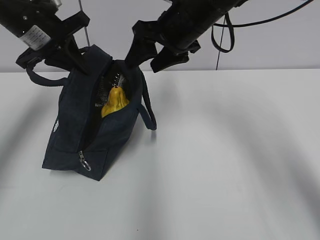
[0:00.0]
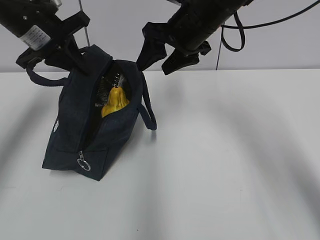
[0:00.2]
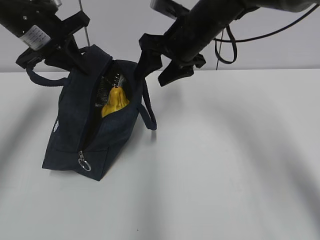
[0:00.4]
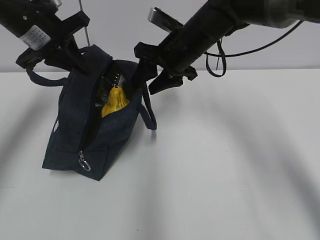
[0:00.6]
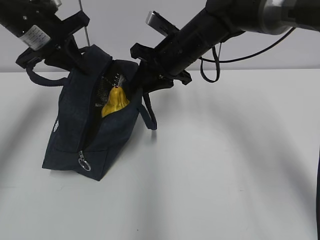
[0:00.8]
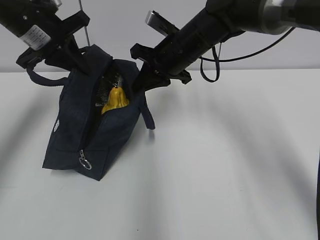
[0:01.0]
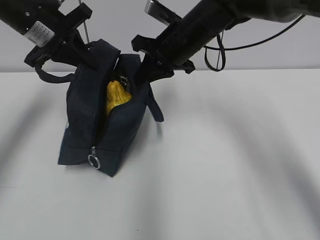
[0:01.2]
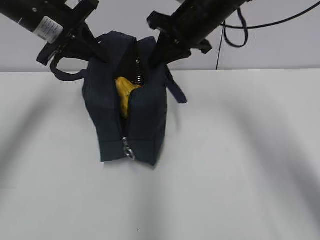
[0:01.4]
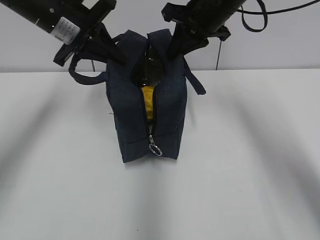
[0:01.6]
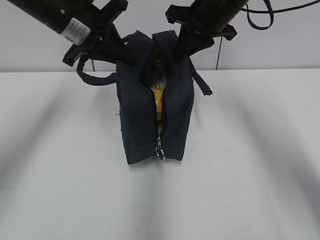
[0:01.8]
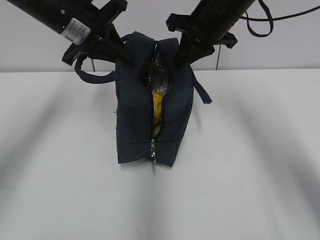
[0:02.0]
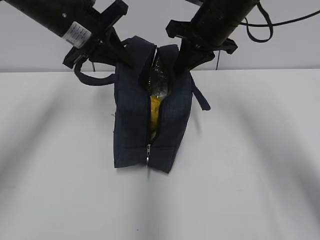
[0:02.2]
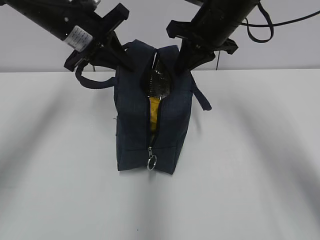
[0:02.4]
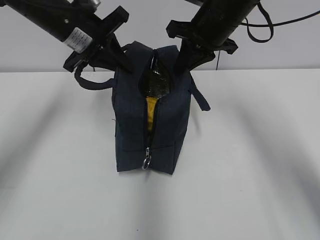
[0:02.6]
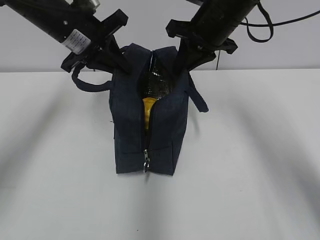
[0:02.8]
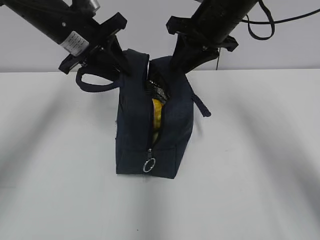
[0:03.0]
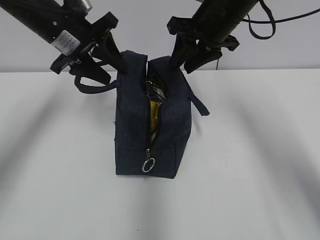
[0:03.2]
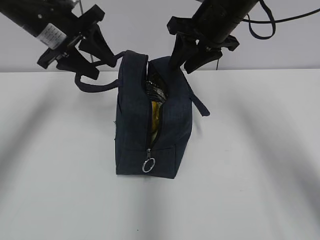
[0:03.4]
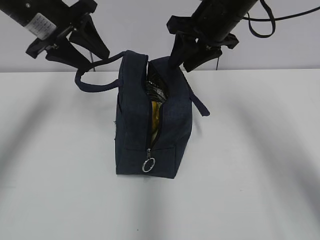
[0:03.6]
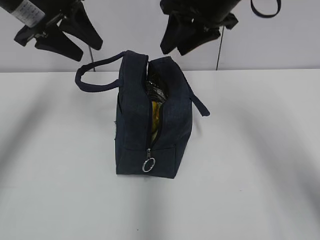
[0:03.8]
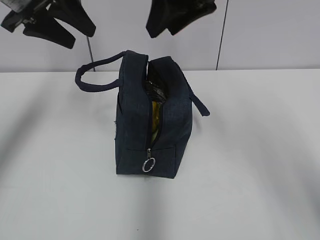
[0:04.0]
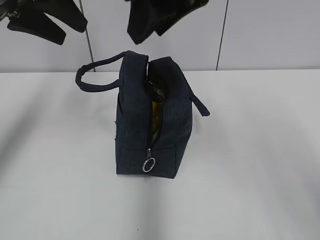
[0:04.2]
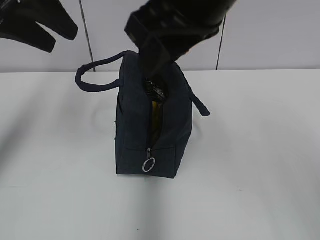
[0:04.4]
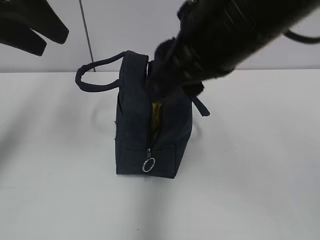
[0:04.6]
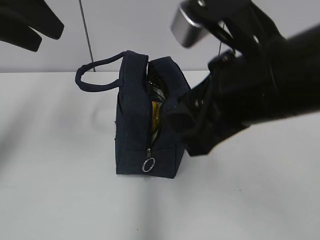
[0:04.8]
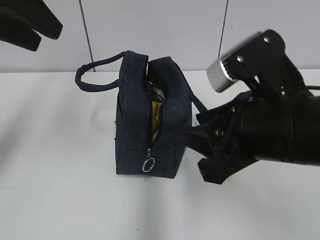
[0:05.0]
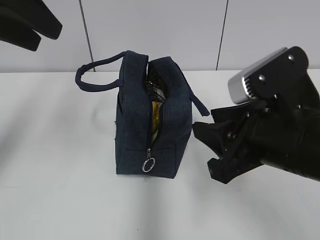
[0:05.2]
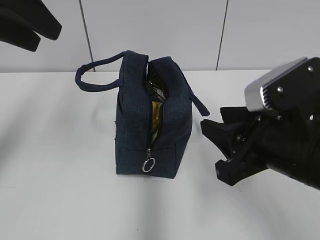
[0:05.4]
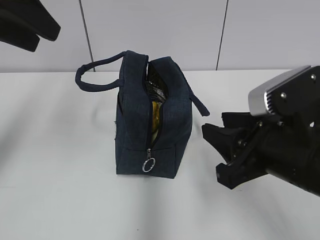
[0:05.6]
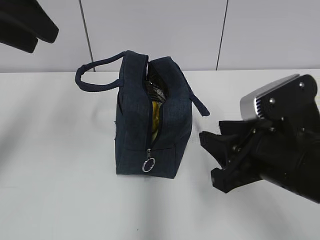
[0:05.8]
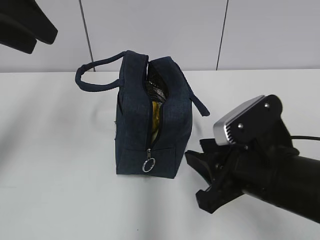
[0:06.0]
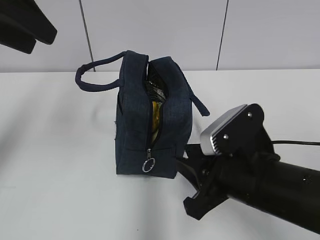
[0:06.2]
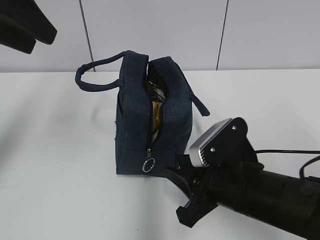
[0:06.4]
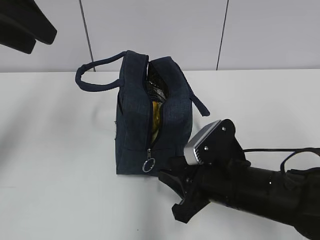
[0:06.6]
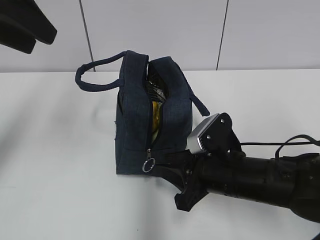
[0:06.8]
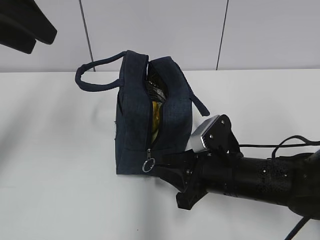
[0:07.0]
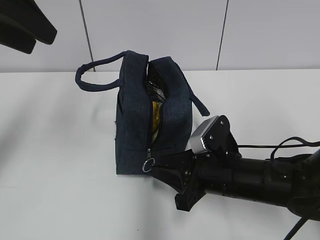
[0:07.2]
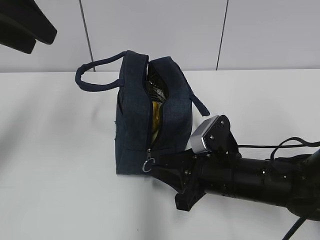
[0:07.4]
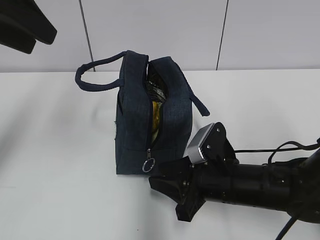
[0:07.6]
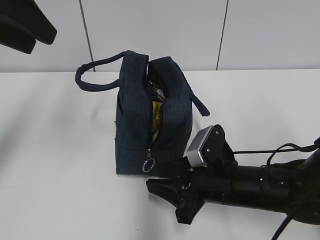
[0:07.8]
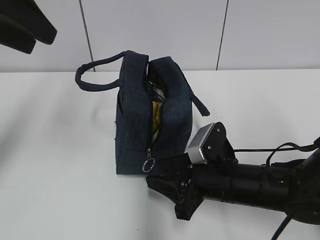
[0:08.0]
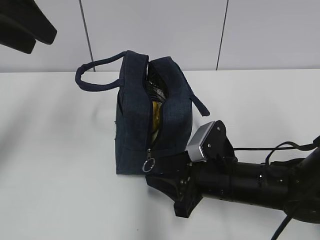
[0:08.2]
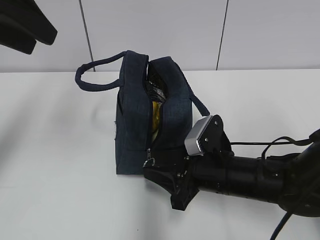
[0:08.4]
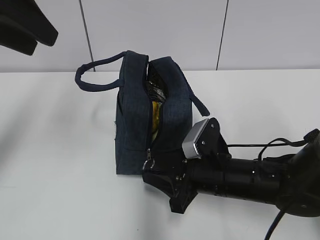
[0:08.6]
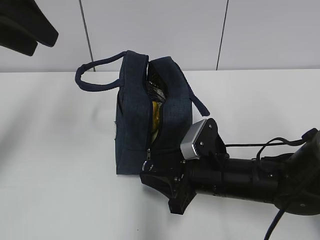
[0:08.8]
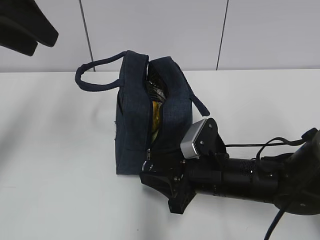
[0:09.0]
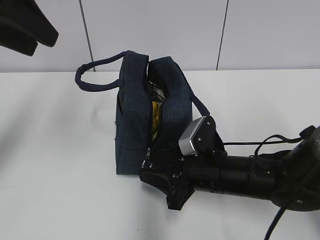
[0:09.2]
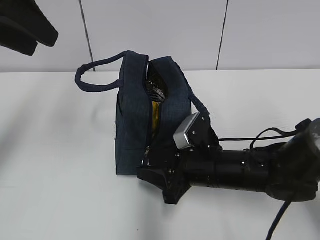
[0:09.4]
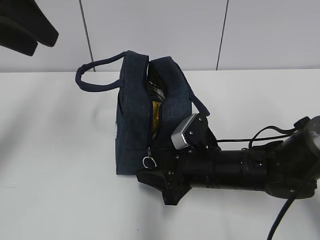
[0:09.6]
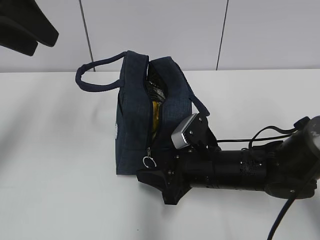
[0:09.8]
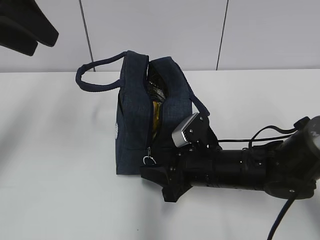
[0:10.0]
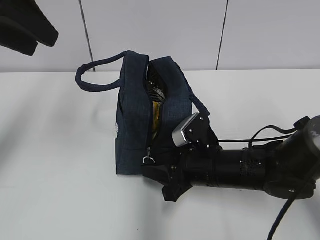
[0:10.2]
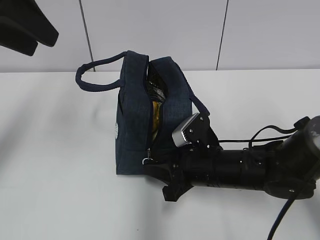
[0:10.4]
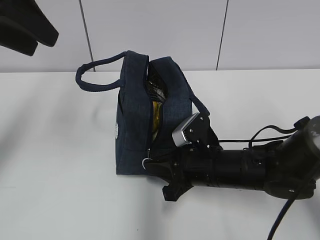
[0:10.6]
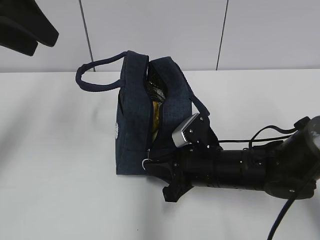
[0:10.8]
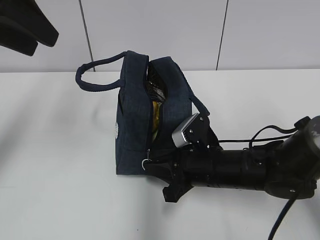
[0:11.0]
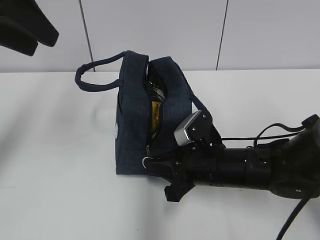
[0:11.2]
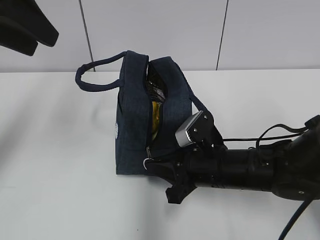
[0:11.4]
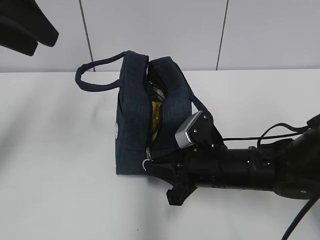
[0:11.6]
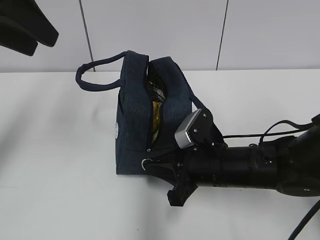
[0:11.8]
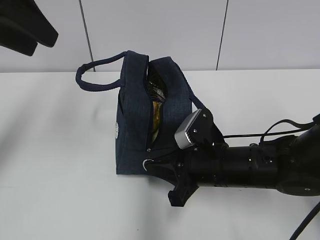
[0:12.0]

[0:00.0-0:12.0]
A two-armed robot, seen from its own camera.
Step, 0:00.0 to 0:01.0: Grab the lunch bag with your right hand.
Step, 0:01.2 to 0:03.0: Move the lunch bag to the right.
0:00.0 to 0:01.6: The right gripper moves roughly 5 cm downward and comes back, and closes up.
0:01.6 to 0:03.0: The right gripper opens its fingers. The left gripper opens up.
0:03.0 to 0:04.4: The right gripper moves backward and upward, about 20 cm. The left gripper travels upward, backward and to the left by some 15 cm.
0:04.4 to 0:06.0: The right gripper travels downward by approximately 20 cm.
0:06.0 to 0:07.6: The right gripper heads downward and forward, covering about 10 cm.
0:07.6 to 0:09.0: The grippers stay close to where they were, moving slightly.
0:09.0 to 0:10.4: The right gripper closes up.
0:10.4 to 0:12.0: The grippers make only small movements.

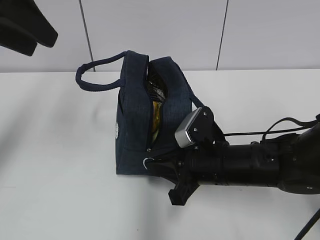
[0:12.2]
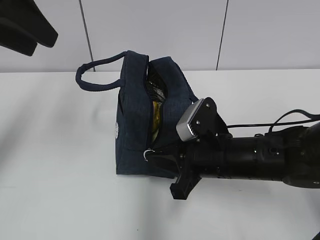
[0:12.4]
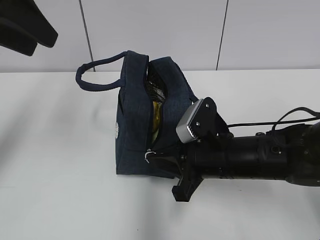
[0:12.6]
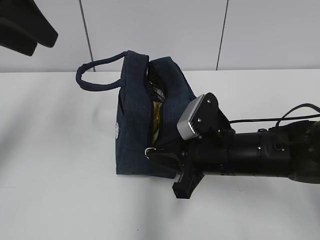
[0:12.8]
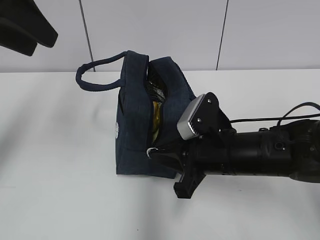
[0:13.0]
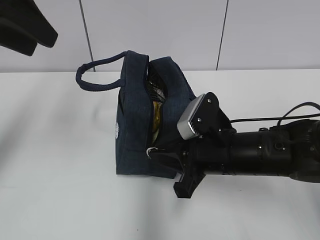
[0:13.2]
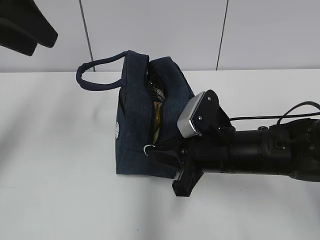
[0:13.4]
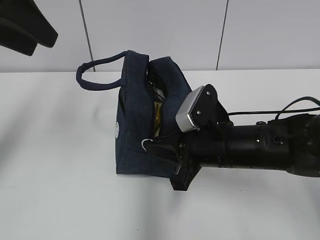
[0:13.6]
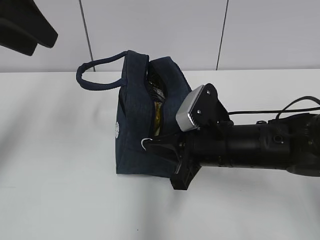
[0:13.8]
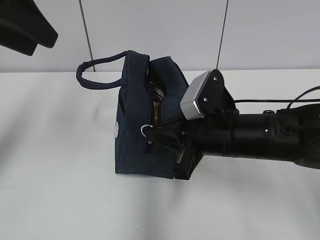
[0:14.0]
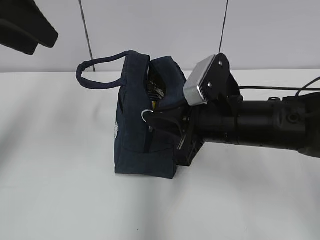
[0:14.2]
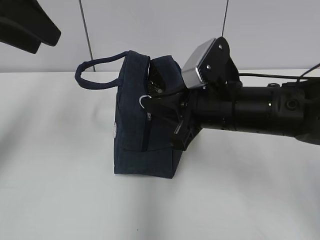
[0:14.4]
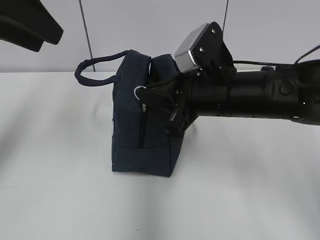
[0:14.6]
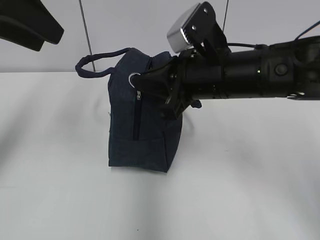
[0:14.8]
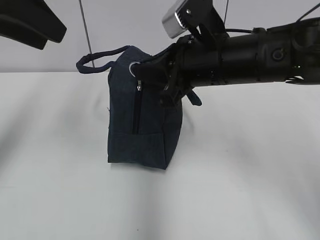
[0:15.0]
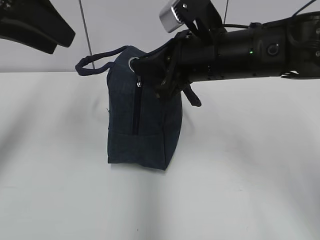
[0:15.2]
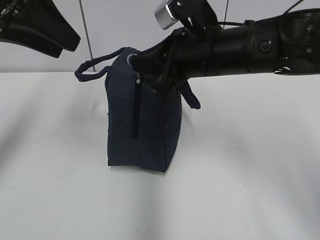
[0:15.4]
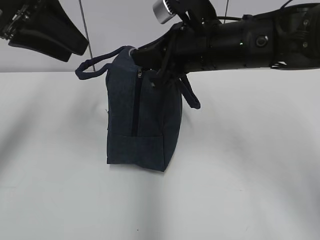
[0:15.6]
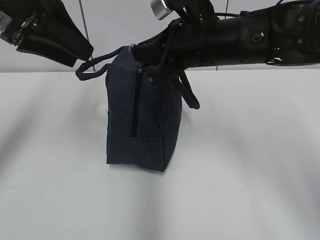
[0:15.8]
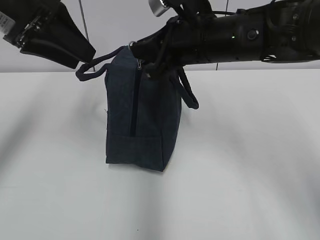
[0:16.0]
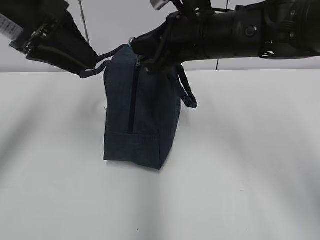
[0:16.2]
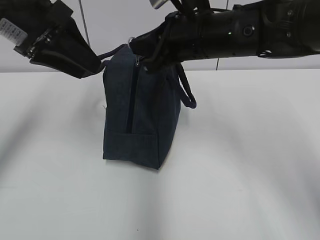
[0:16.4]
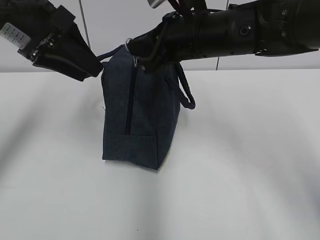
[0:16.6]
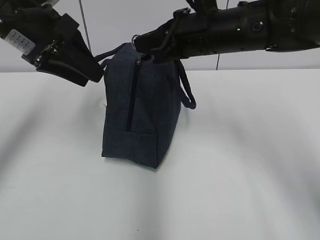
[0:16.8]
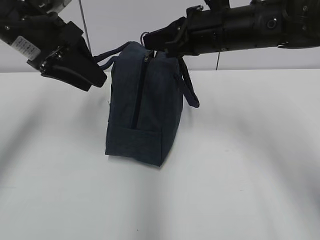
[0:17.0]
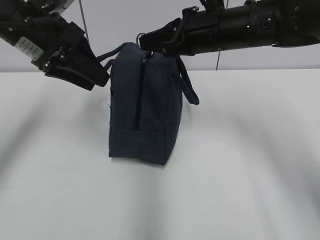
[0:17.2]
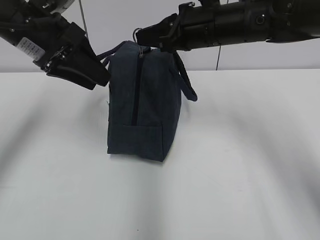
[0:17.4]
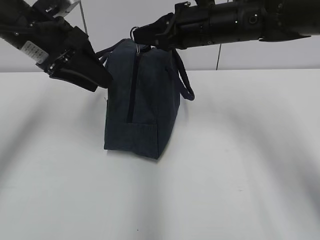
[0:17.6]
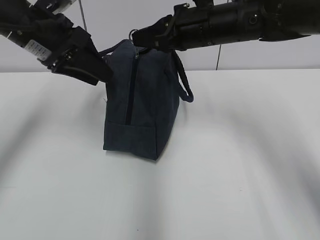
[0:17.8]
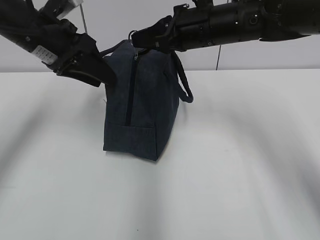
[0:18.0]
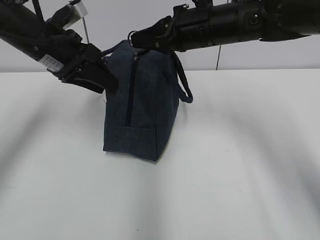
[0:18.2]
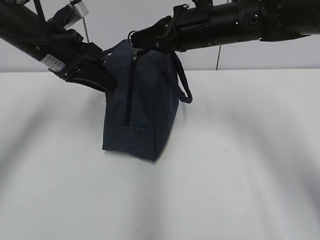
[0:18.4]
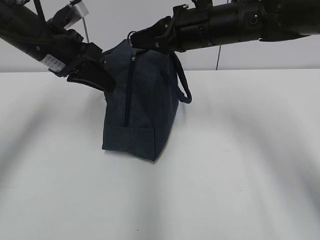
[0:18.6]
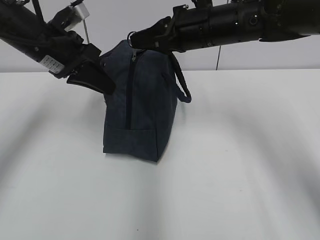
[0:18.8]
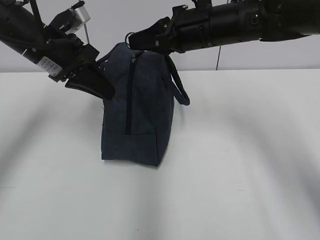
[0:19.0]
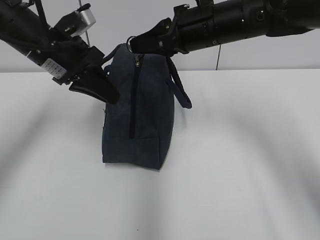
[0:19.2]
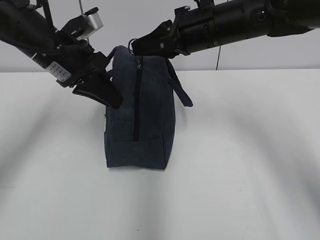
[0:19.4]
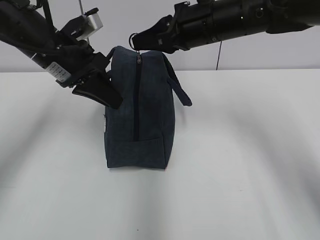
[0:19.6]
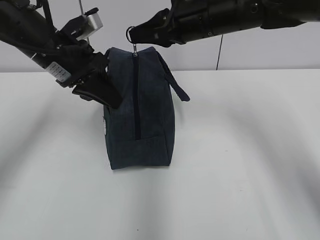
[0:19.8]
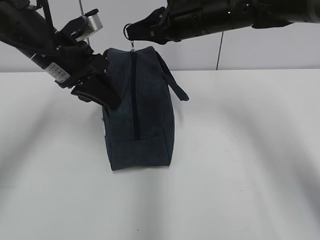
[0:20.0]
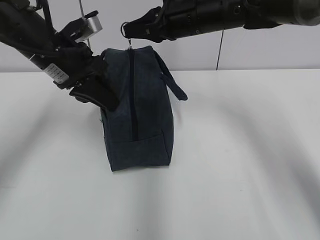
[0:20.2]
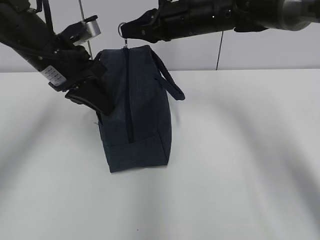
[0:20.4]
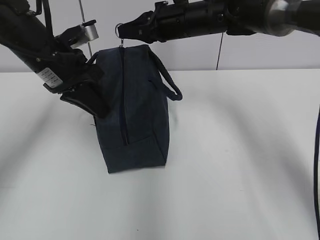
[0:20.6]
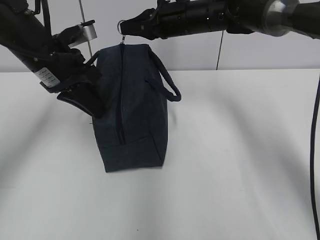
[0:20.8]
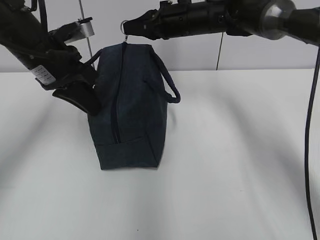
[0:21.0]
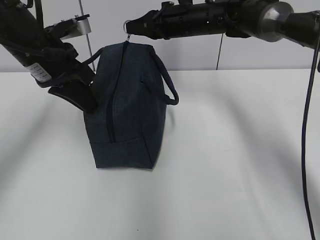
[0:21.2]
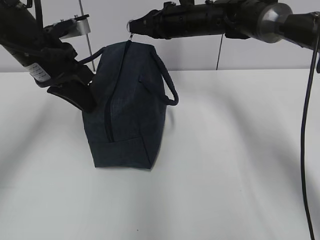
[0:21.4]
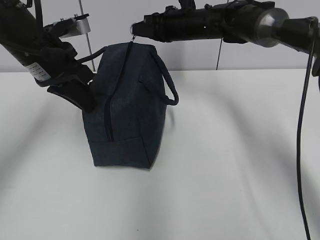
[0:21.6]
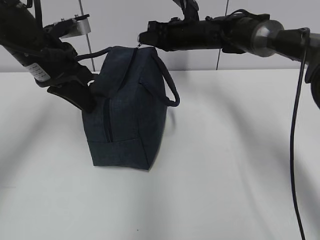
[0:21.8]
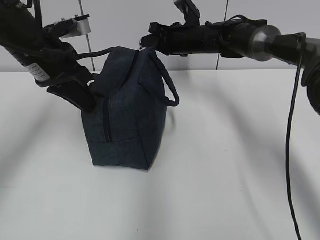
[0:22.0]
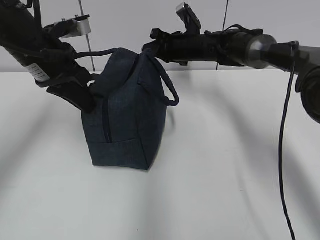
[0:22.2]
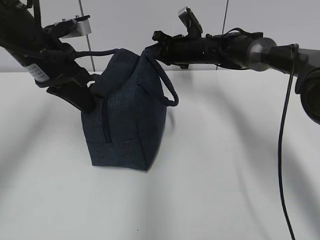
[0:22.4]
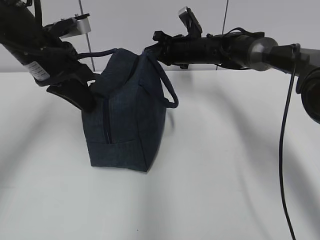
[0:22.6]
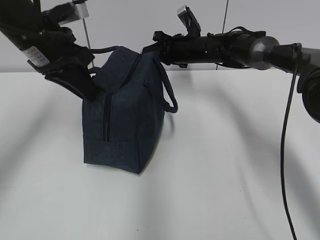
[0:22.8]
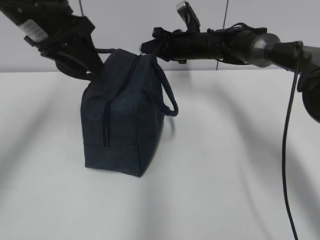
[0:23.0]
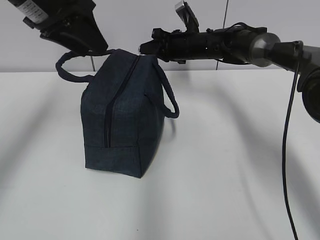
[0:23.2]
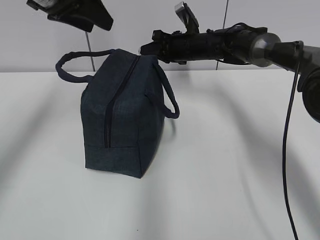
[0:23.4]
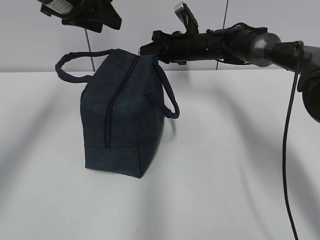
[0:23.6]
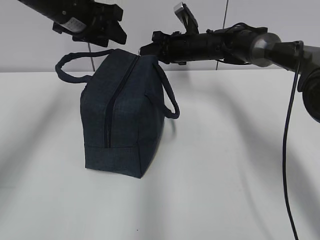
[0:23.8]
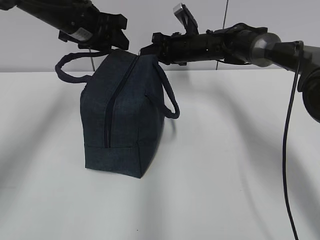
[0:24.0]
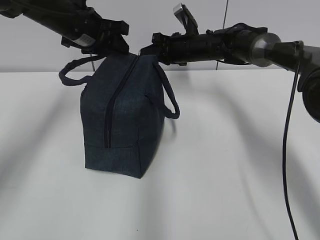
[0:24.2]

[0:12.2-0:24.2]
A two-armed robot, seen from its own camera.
Step, 0:12.2 to 0:22.6: Grab the lunch bag with your left hand.
0:12.2 to 0:13.8: There are only small adjustments of the grippers.
0:13.8 to 0:15.2: The right gripper goes approximately 10 cm upward.
0:15.2 to 0:16.6: The left gripper heads downward, covering roughly 5 cm.
0:16.6 to 0:18.2: The left gripper is displaced downward by approximately 5 cm.
0:18.2 to 0:19.8: The left gripper closes up.
0:19.8 to 0:21.2: The right gripper is displaced forward by about 10 cm.
0:21.2 to 0:22.6: The right gripper is displaced downward by roughly 10 cm.
0:22.6 to 0:24.2: The left gripper moves forward, some 10 cm, and opens its fingers.
